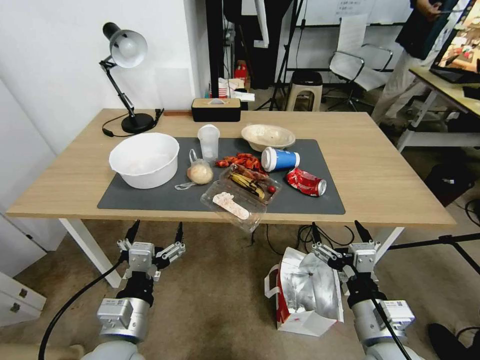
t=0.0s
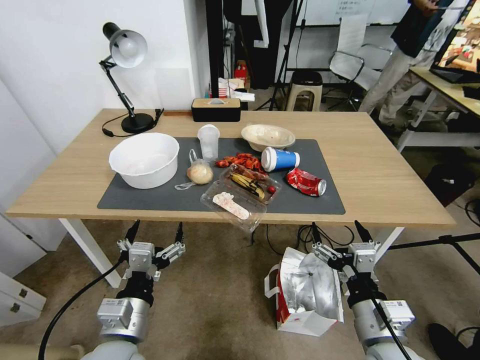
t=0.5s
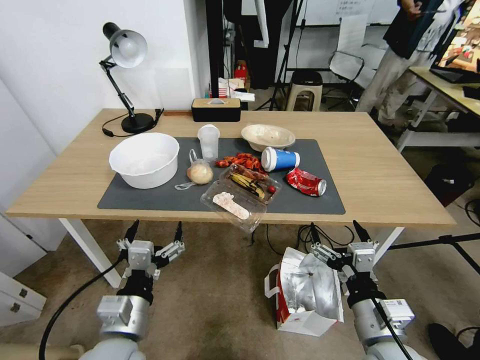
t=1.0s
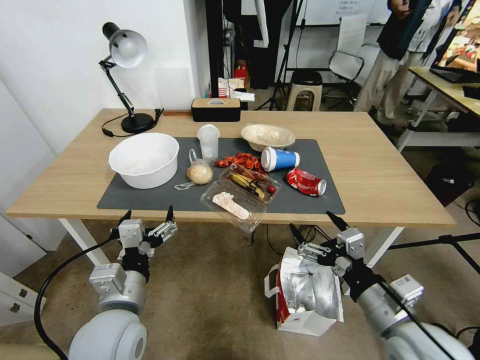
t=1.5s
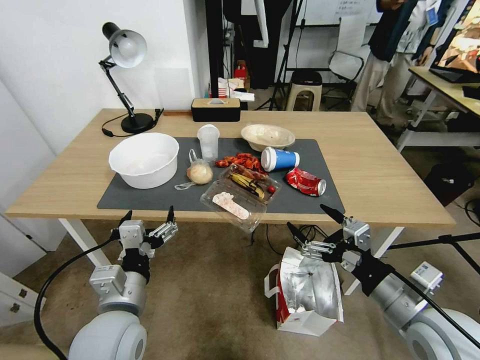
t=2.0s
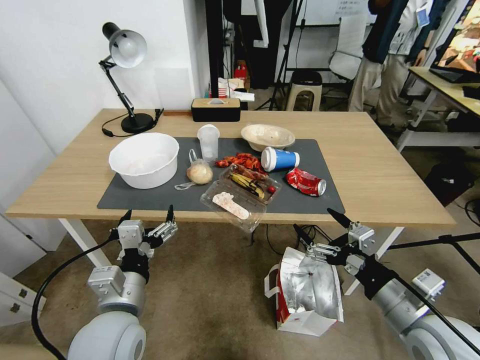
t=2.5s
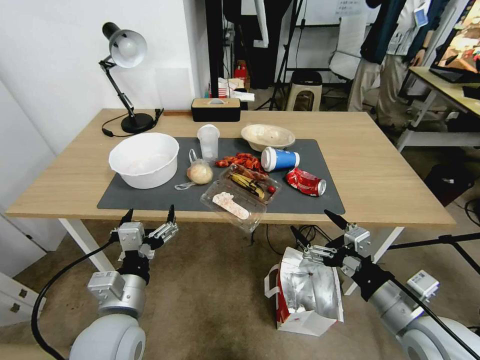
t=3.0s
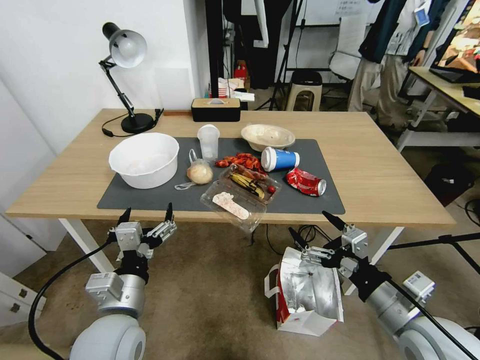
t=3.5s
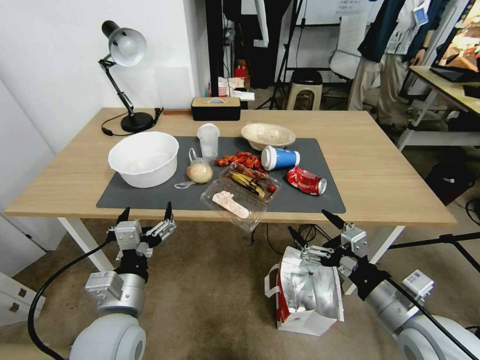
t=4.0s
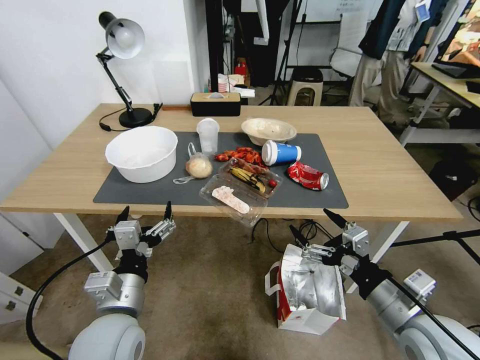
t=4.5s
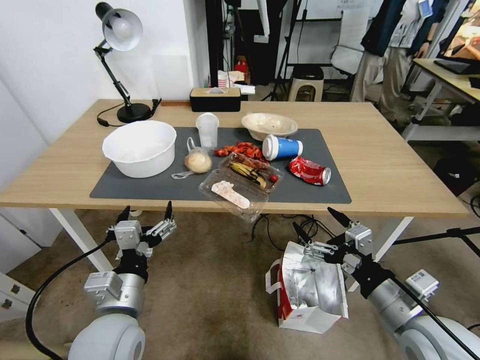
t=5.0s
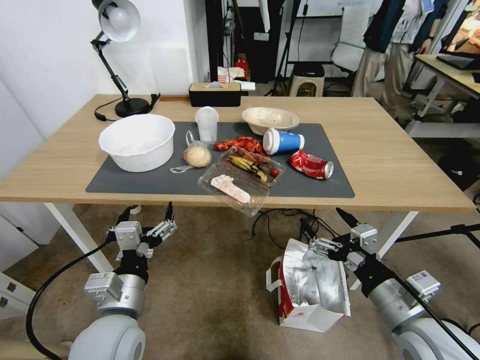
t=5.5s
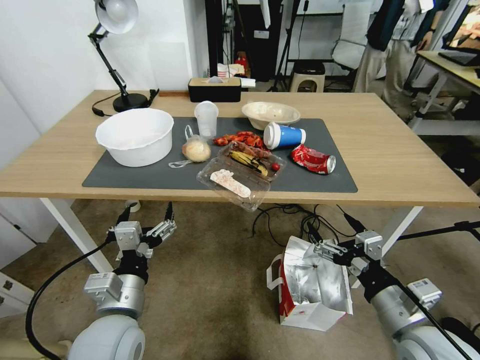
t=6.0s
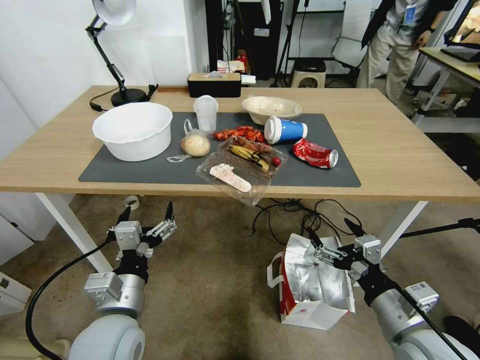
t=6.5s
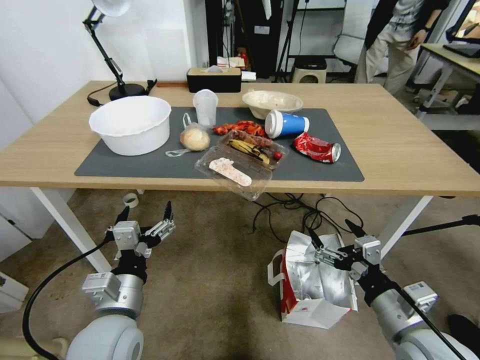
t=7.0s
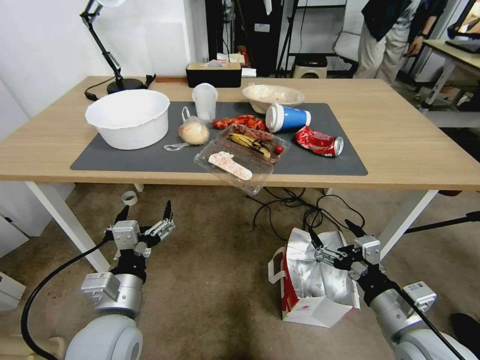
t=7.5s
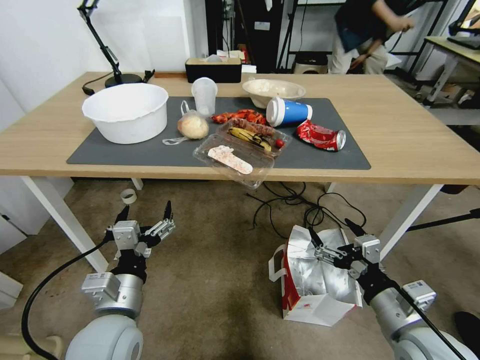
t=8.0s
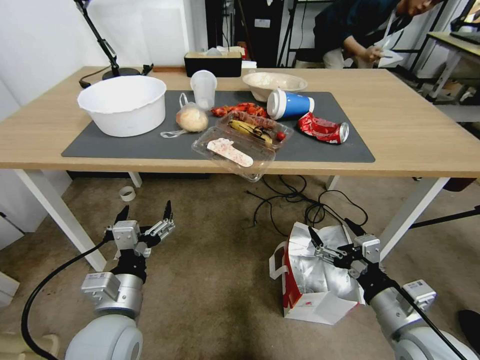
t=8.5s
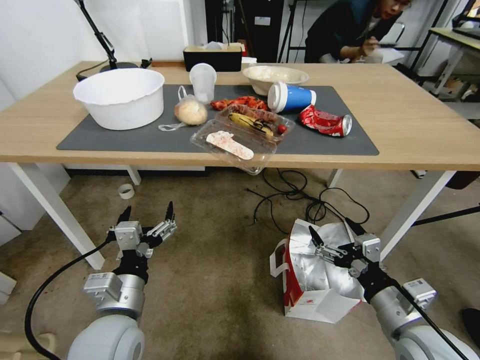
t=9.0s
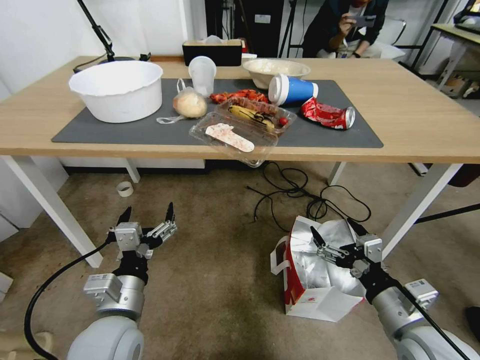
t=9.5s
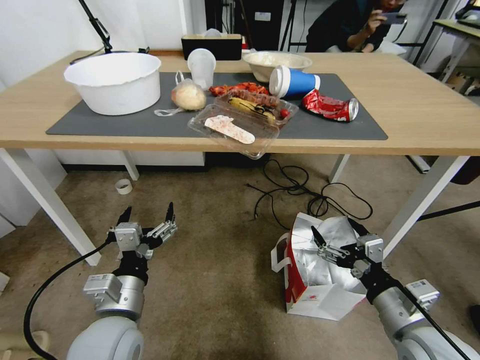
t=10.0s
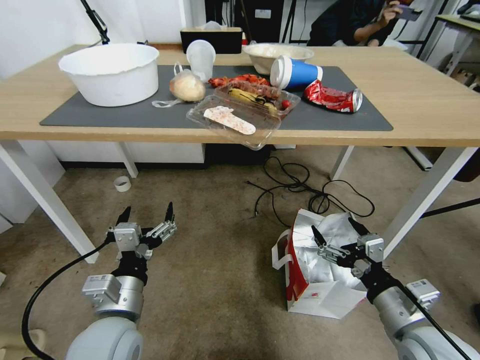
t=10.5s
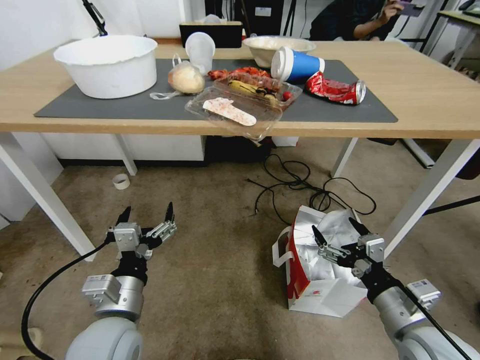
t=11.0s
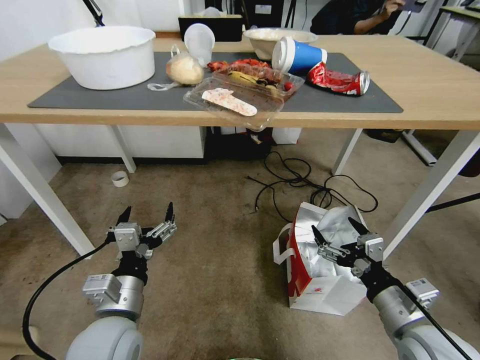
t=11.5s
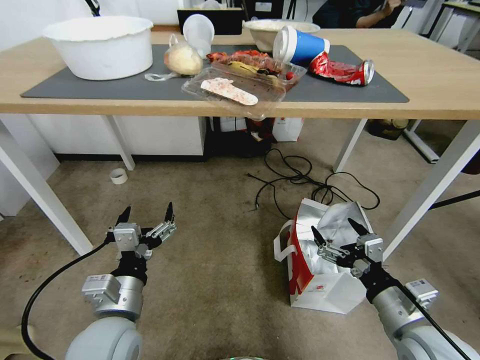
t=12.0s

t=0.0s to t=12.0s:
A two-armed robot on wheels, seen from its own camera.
Task of the whole recording: Pick up the food delivery bag from the floor and place it on the table.
t=2.0s to t=4.0s: The grippers move only a little.

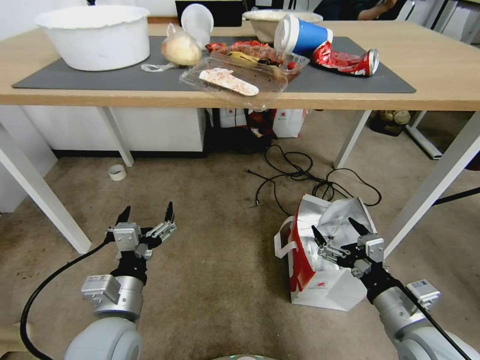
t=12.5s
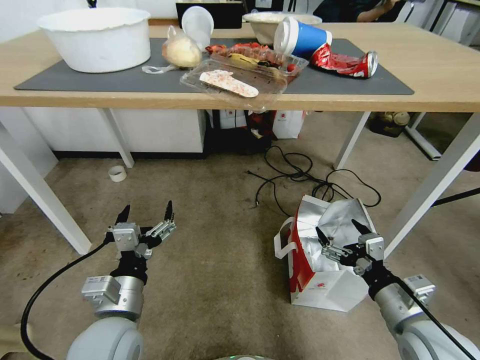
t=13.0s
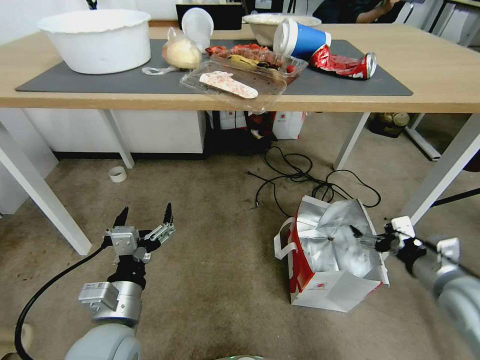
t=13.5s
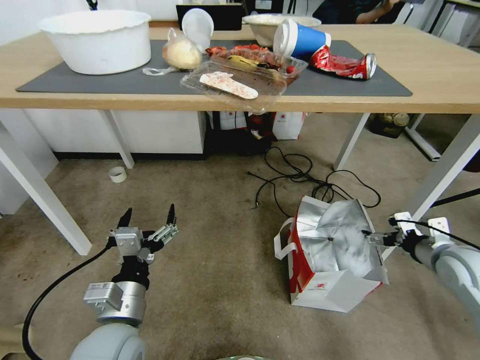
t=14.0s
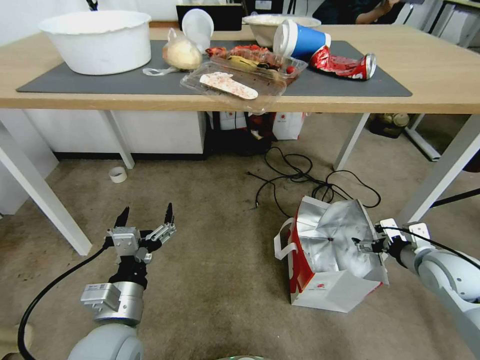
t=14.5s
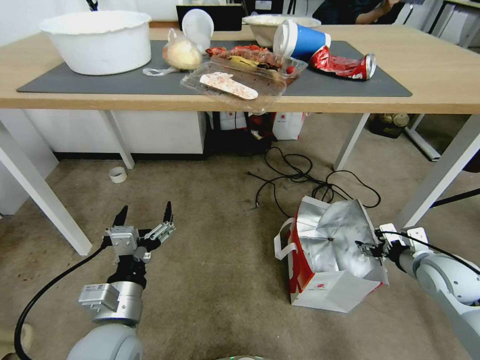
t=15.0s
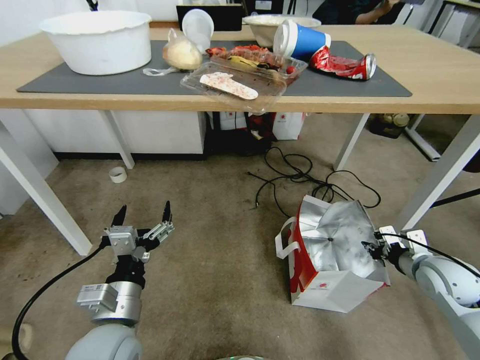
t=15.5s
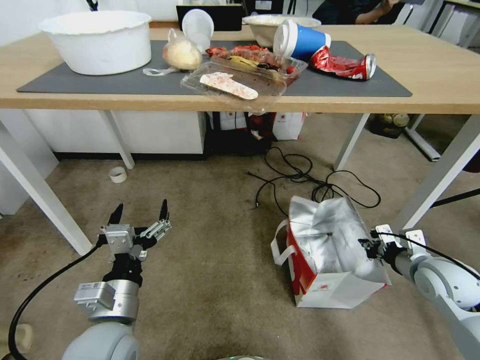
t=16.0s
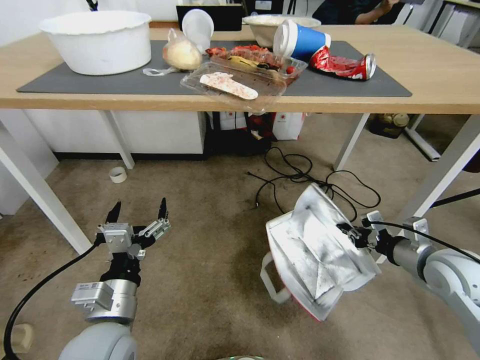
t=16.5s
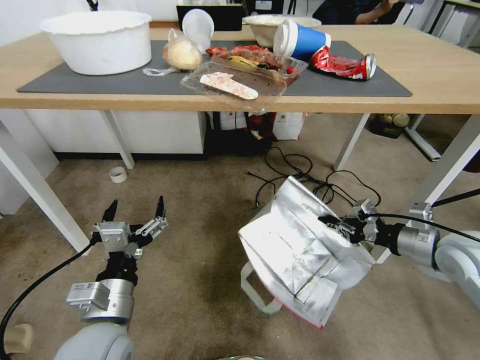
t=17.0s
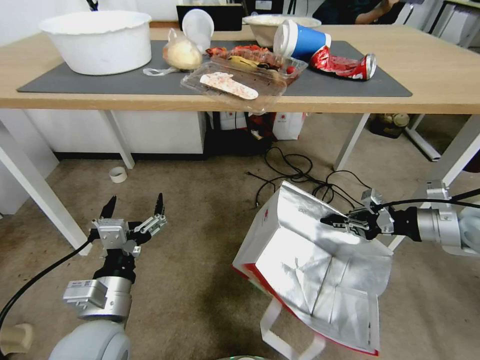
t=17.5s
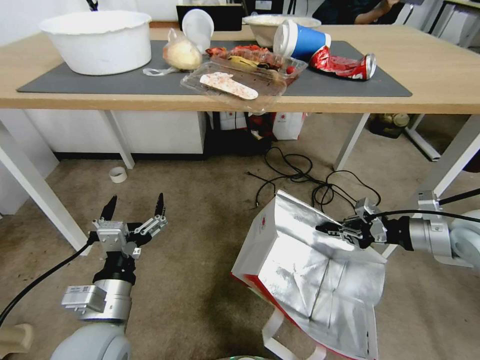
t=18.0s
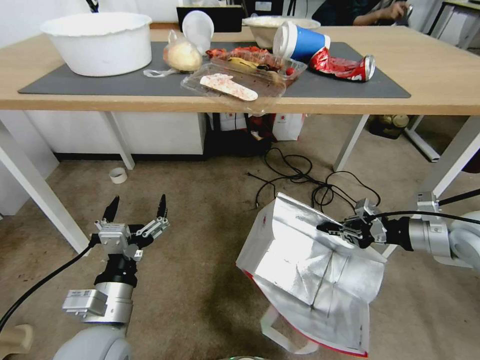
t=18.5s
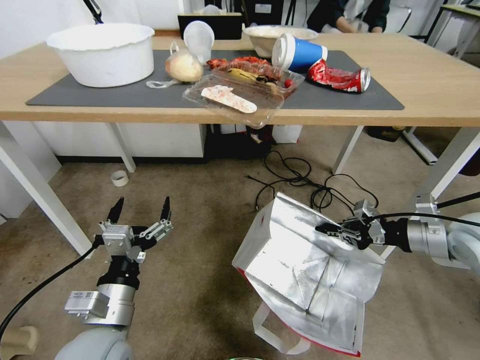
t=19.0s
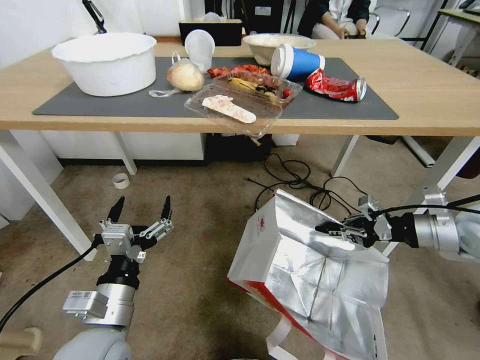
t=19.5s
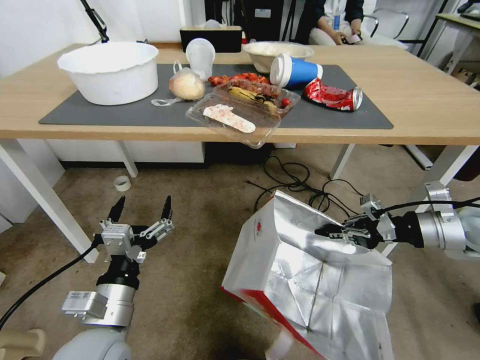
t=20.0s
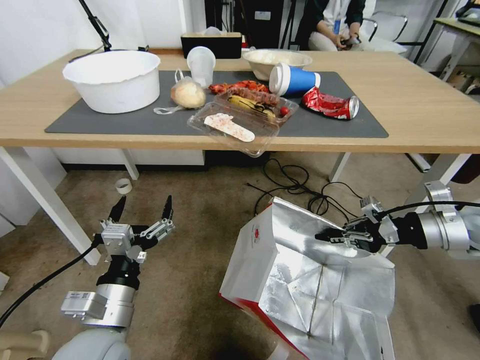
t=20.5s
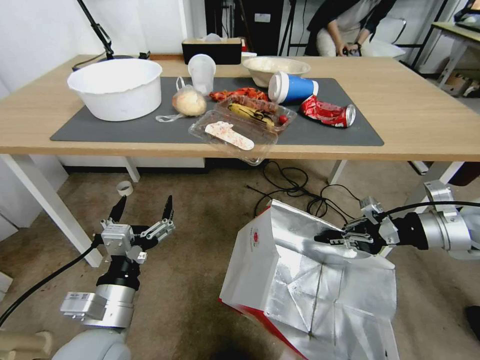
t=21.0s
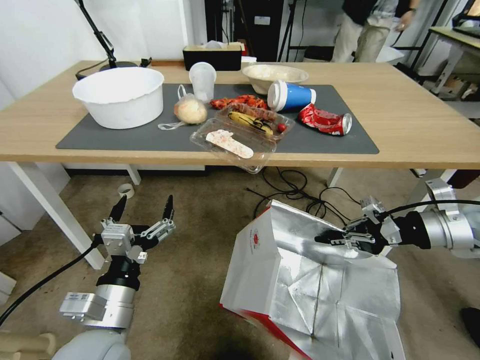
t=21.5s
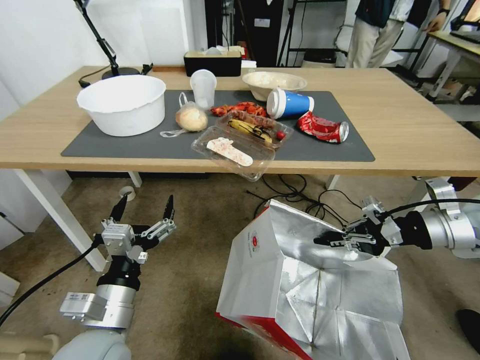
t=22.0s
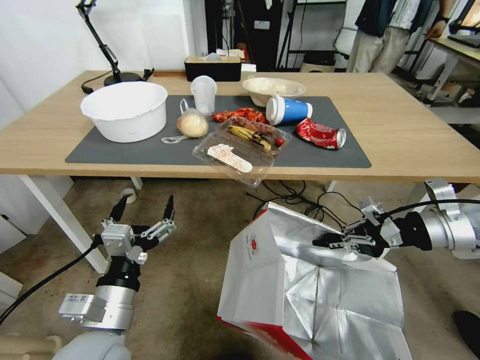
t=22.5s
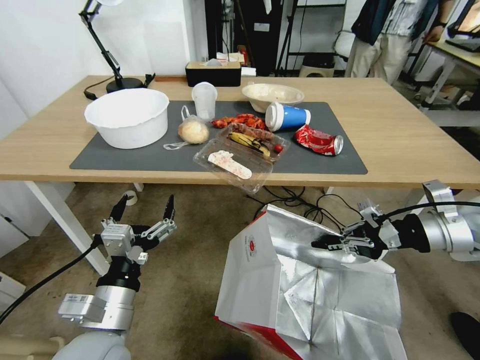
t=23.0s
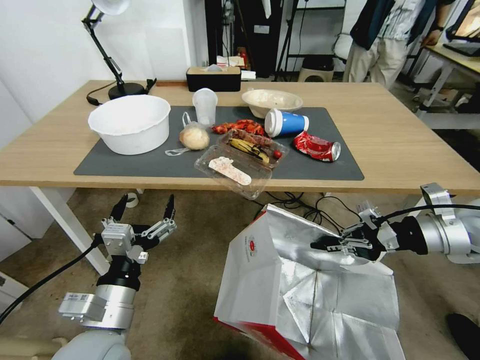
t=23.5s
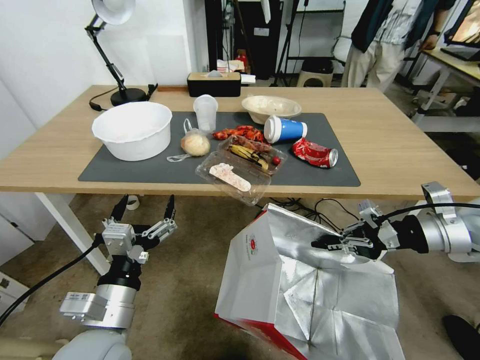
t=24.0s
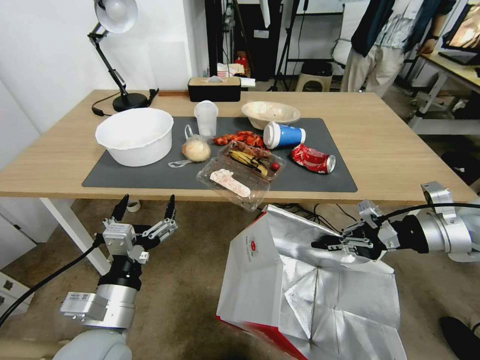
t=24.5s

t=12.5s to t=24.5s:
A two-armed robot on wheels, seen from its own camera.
Task of the whole recording: Pick up the food delivery bag from the floor and place it on the table.
t=12.5s to t=14.5s: The right gripper goes about 20 cm forward and to the right.
t=14.5s to t=16.5s: The right gripper closes.
t=16.5s to t=18.5s: The right gripper heads upward, covering about 10 cm.

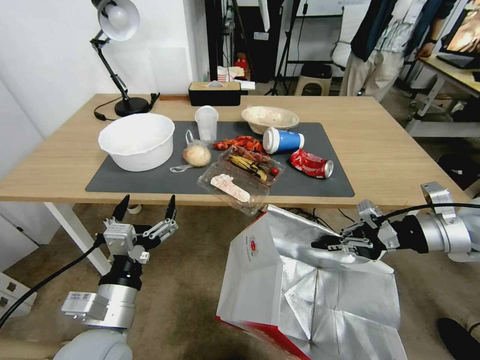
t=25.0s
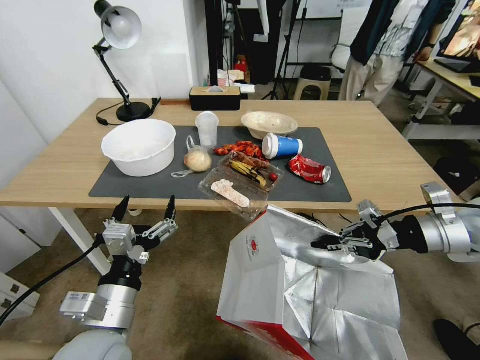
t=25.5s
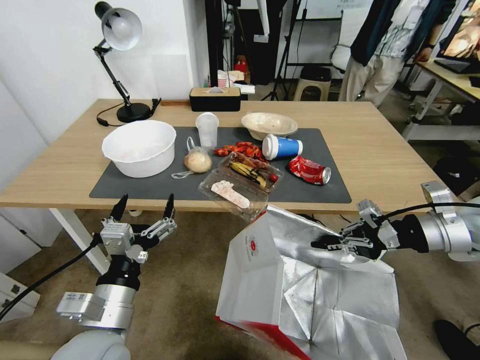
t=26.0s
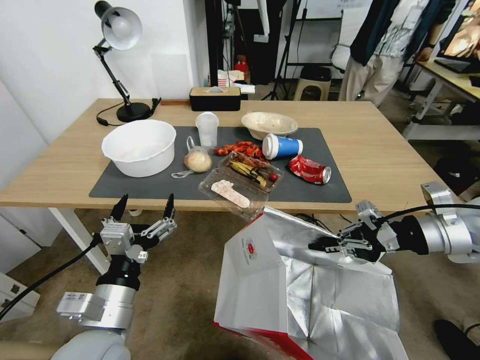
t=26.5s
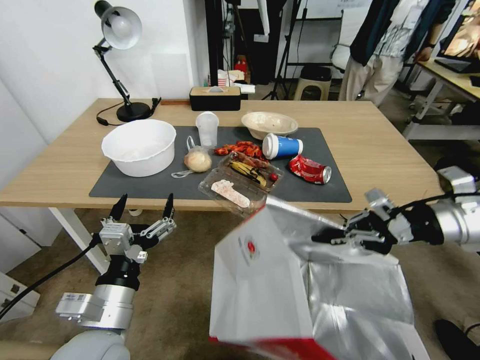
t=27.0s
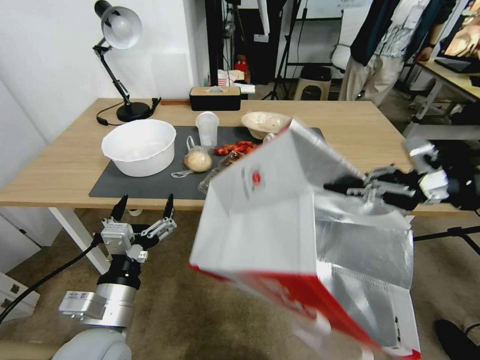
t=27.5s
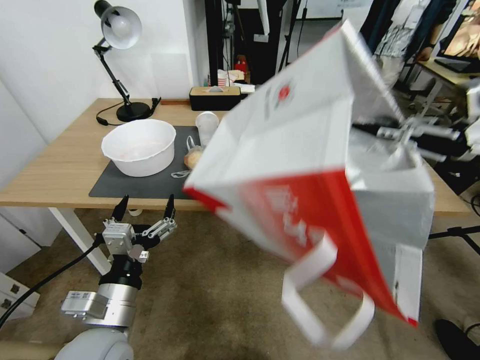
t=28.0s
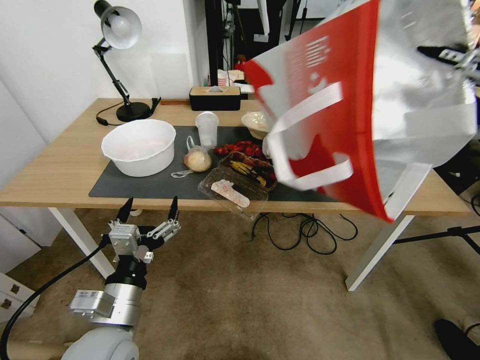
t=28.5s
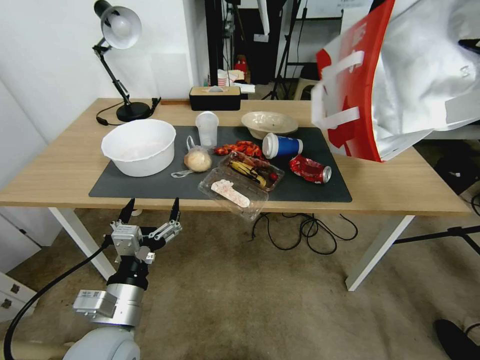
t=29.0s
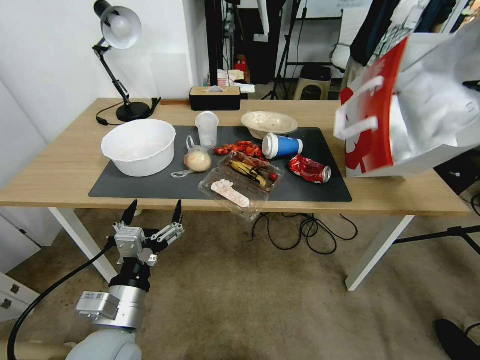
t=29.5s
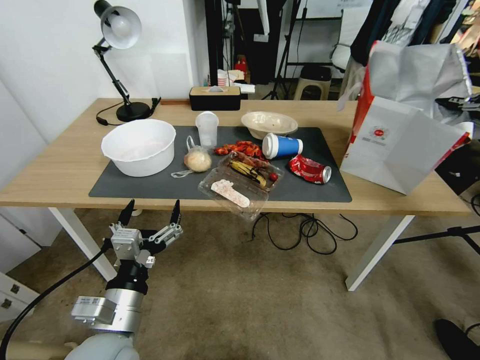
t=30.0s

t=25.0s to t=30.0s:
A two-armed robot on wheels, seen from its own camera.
Task of the whole recording: Pick up the food delivery bag from the floor and place it on the table.
t=25.0s to t=27.5s: The right gripper is displaced upward by roughly 10 cm.
t=27.5s to t=30.0s: The right gripper goes some 15 cm to the right.
